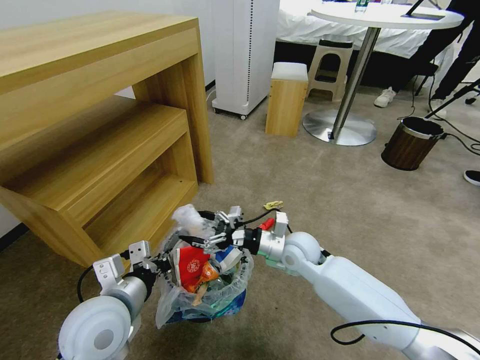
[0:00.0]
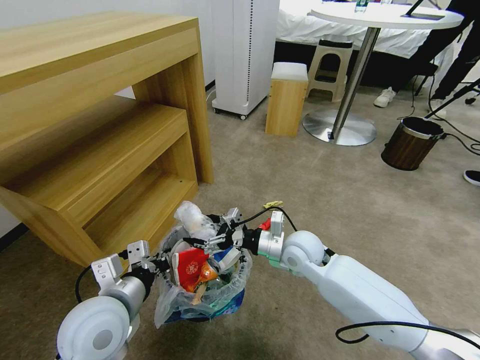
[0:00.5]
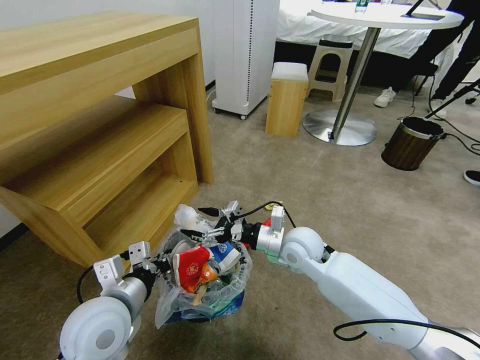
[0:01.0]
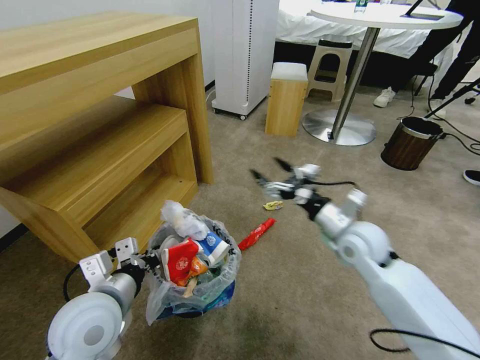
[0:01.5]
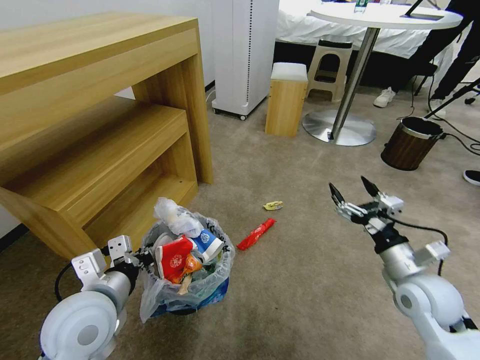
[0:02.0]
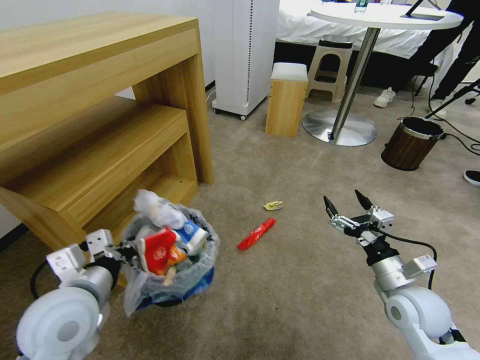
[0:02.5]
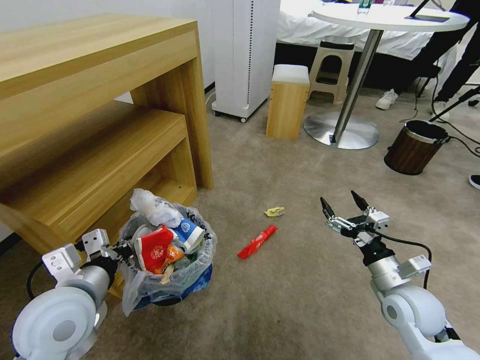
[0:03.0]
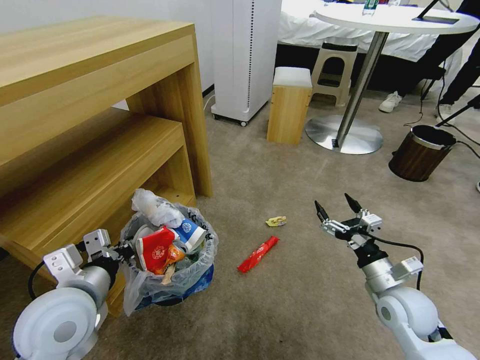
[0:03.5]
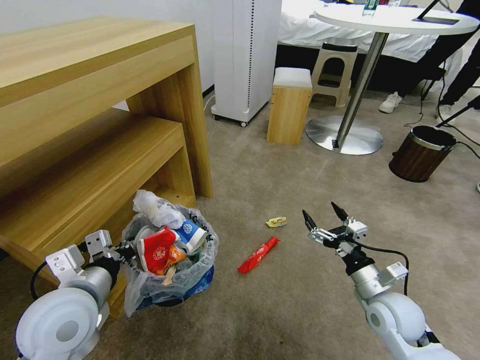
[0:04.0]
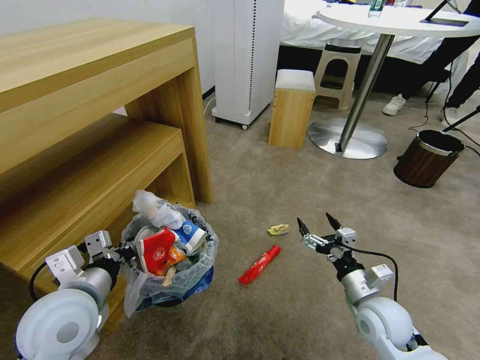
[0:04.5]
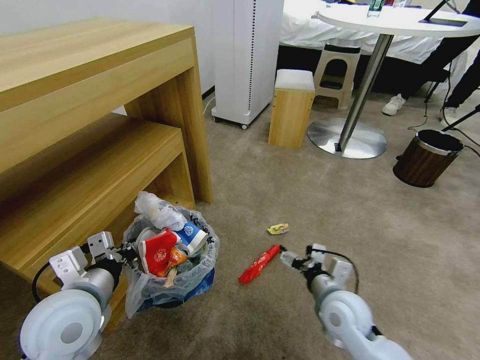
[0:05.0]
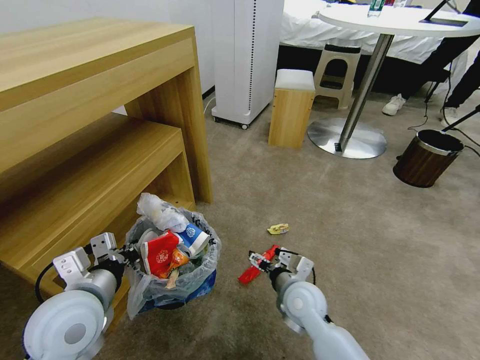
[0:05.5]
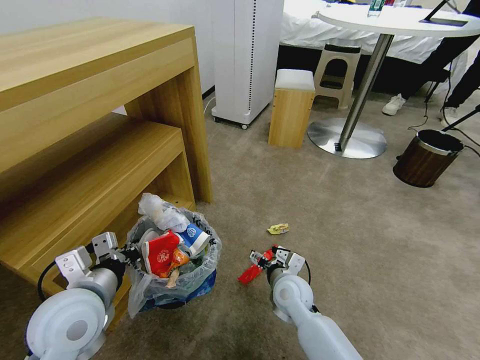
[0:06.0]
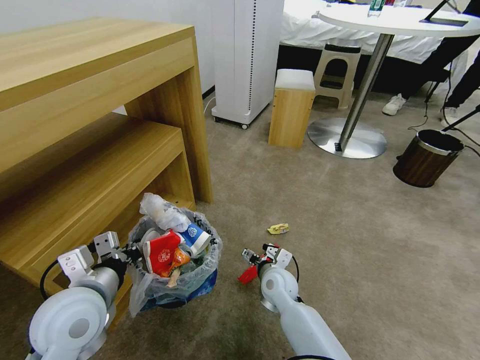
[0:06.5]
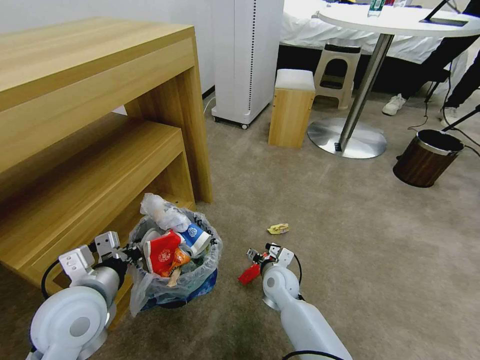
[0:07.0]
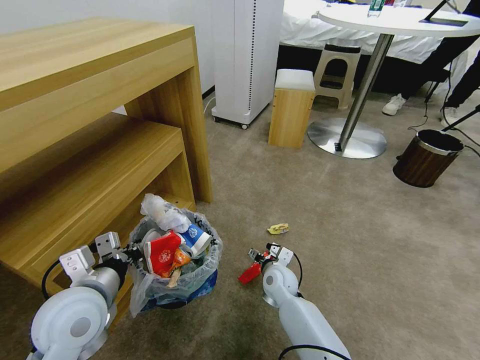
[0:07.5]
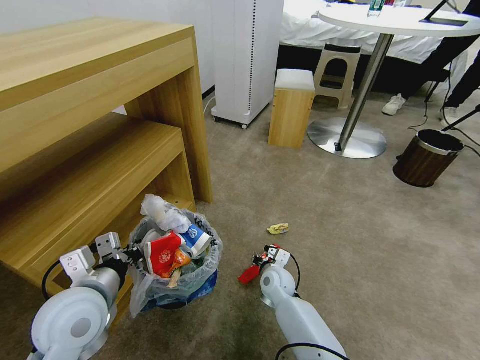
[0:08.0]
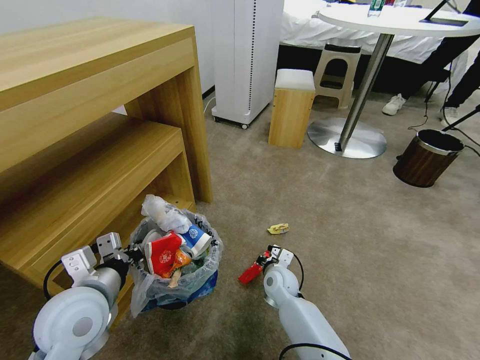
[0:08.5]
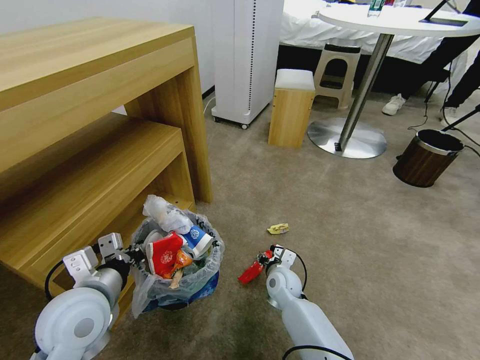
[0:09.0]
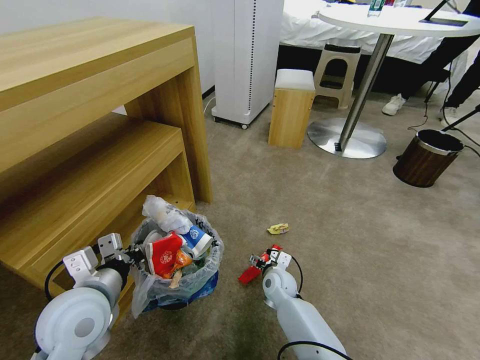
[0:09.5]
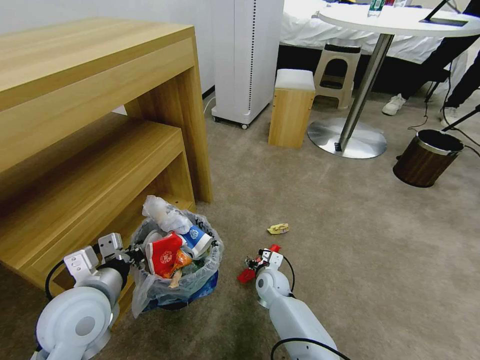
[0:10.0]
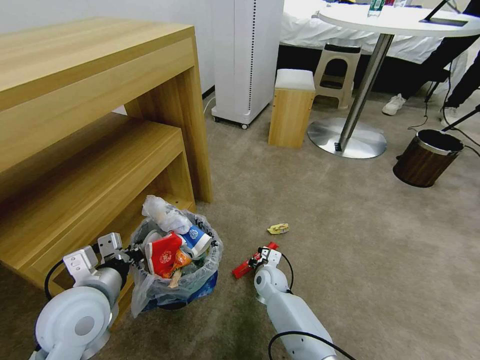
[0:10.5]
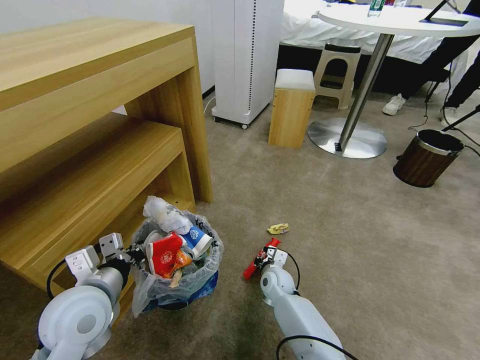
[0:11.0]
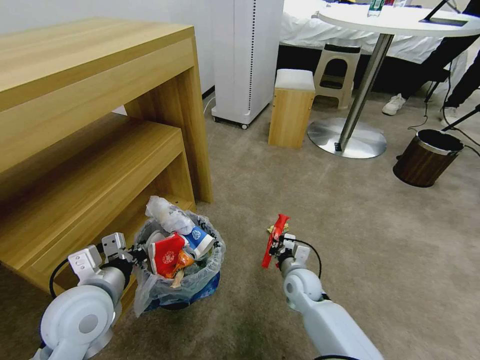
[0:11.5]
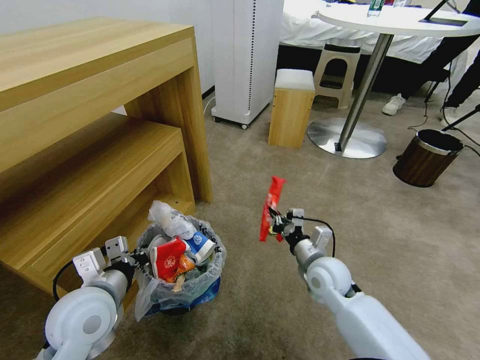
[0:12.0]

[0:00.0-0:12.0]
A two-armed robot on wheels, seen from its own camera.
Task of the whole recording: Pick up the trash bin and place the garbage on the floor into it.
0:00.0 to 0:02.0: The right gripper is displaced to the right and backward by roughly 25 cm.
0:02.0 to 0:04.0: The right gripper goes about 5 cm downward.
0:04.0 to 0:06.0: The right gripper is displaced to the left by approximately 20 cm.
0:06.0 to 0:08.0: The right gripper is displaced downward and forward by some 10 cm, and closes up.
0:08.0 to 0:10.0: The grippers stay close to where they were, moving slightly.
0:10.0 to 0:12.0: The right gripper heads upward and to the right, covering about 20 cm, and closes up.

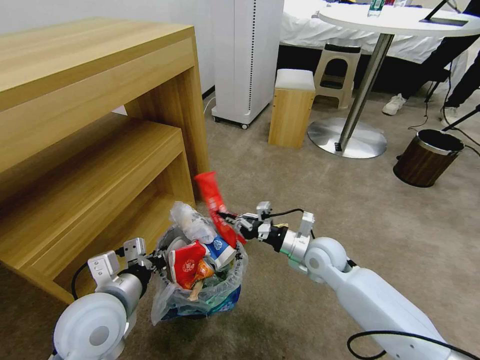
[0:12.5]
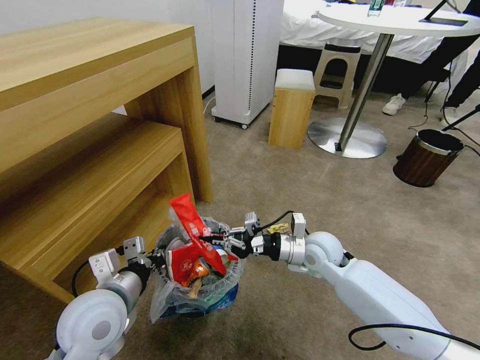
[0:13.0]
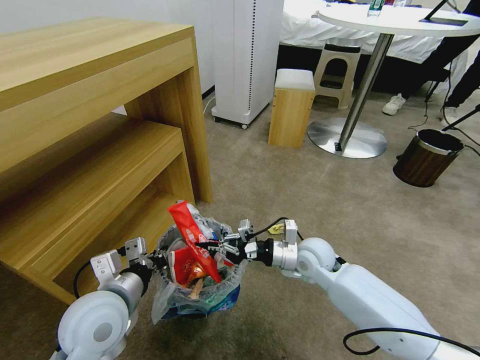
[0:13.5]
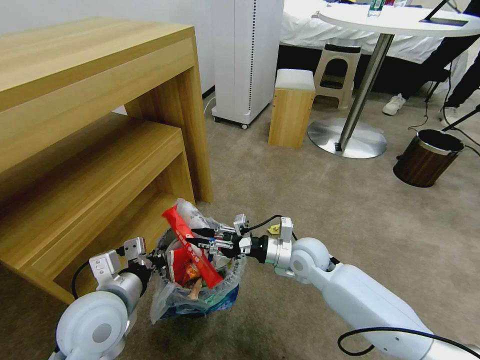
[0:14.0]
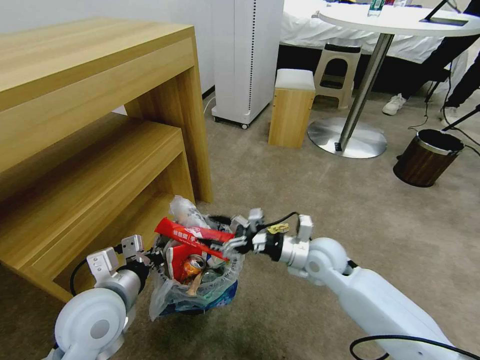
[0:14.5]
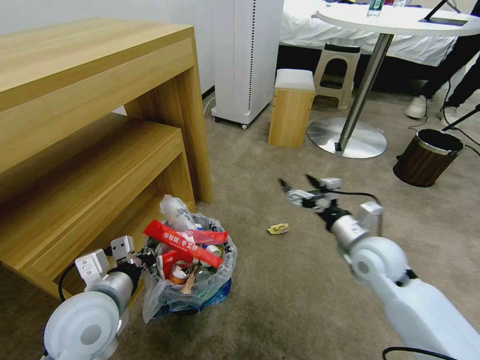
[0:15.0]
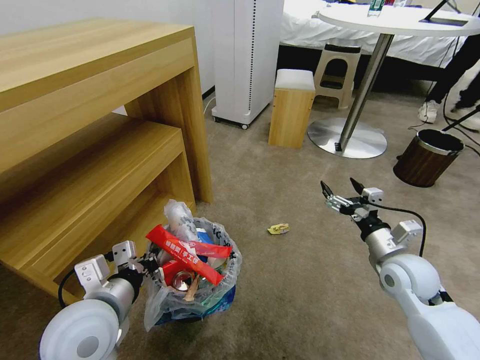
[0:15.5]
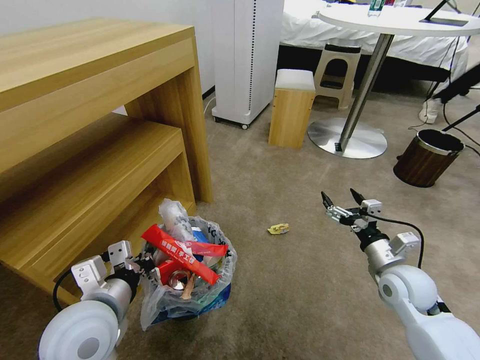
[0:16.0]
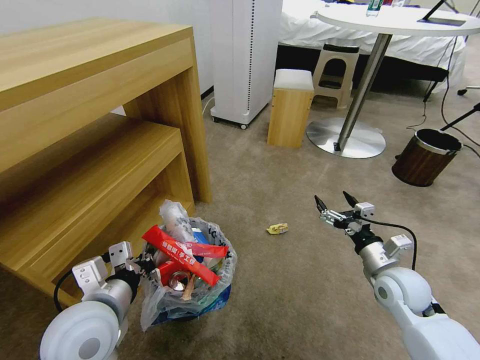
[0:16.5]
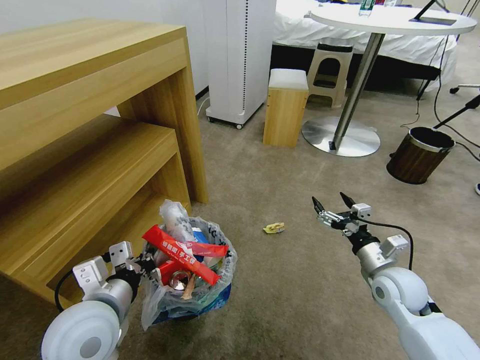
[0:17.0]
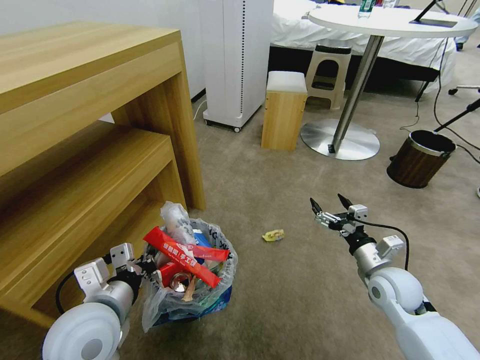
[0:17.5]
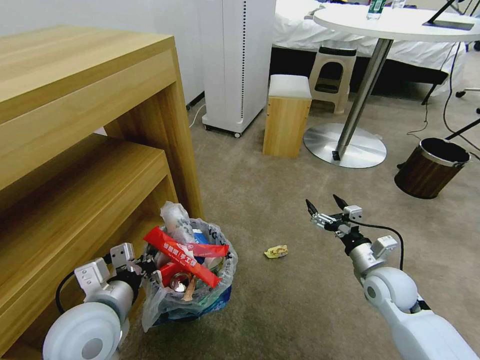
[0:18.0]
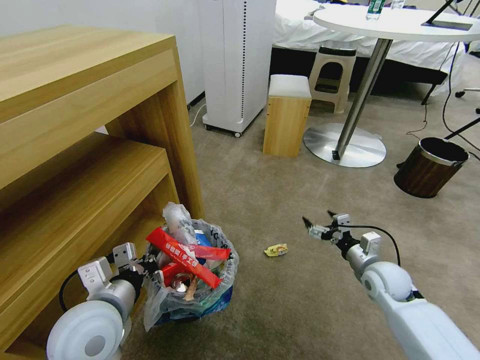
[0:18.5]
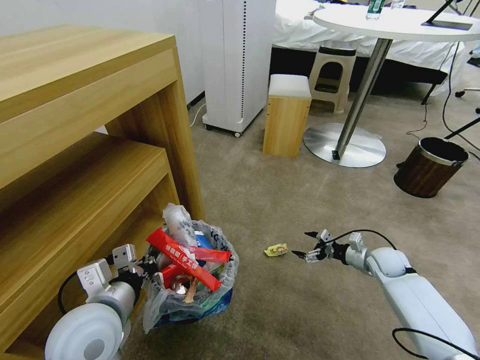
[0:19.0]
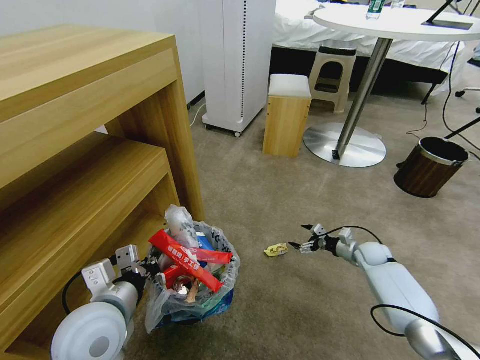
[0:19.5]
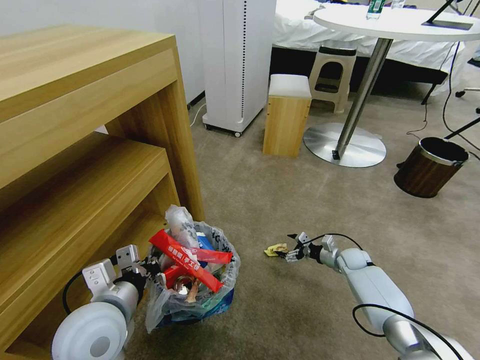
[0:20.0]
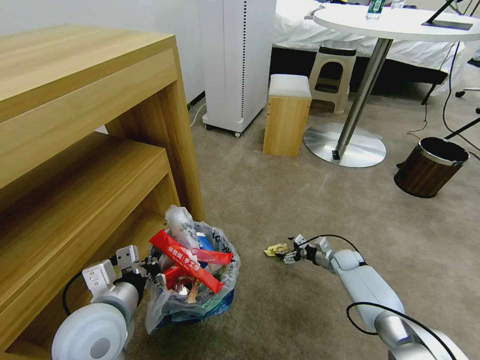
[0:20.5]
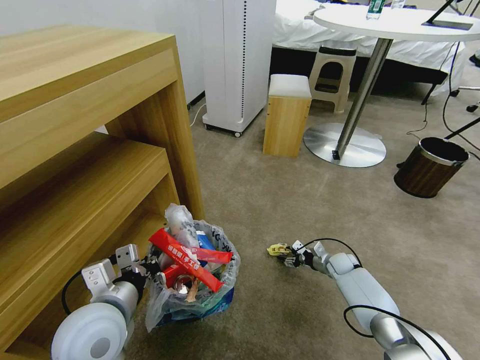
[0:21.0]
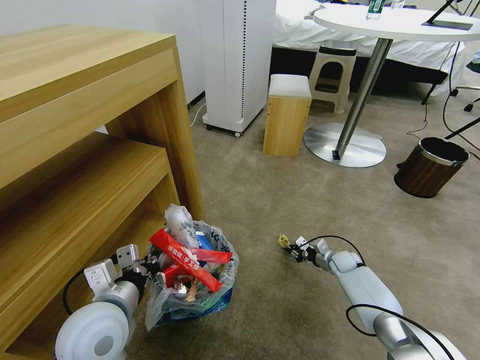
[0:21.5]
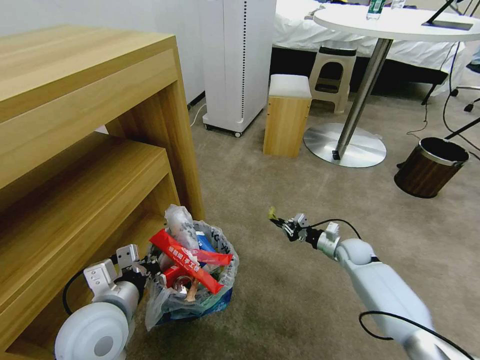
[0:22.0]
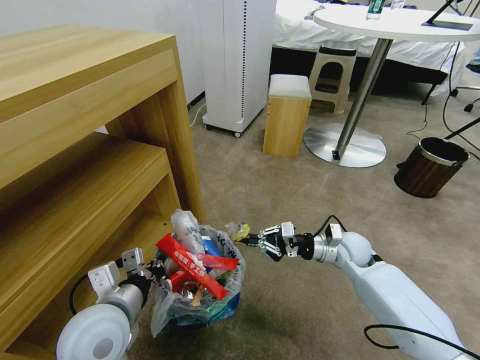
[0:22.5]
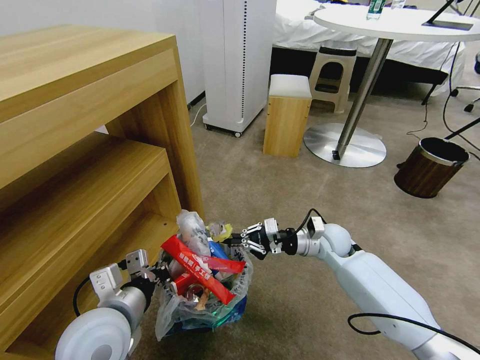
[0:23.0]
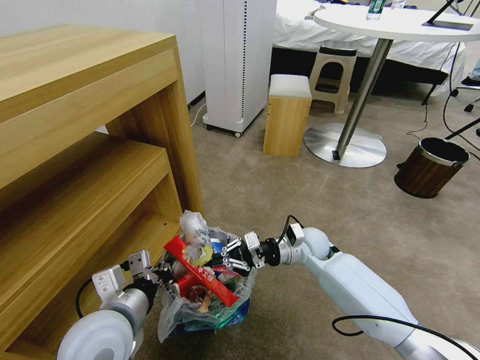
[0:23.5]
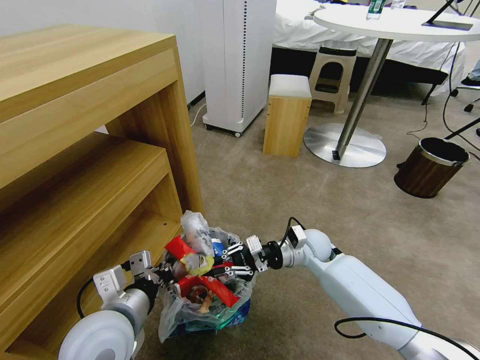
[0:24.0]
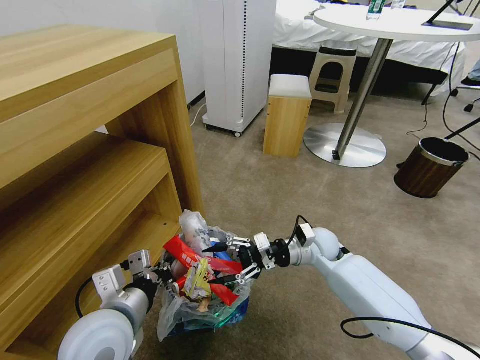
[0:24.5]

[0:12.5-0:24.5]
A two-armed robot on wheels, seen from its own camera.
Task of the whole recording: Pick up the trash bin and place the garbage on the floor into it.
0:12.5 to 0:14.5: The right gripper opens up.
0:14.5 to 0:16.5: The right gripper shifts about 15 cm to the right.
0:16.5 to 0:18.5: The right gripper ends up about 5 cm from where it was.
0:18.5 to 0:20.5: The right gripper heads downward and forward, covering approximately 20 cm.
0:20.5 to 0:22.5: The right gripper is displaced upward and to the left by about 20 cm, and closes up.
0:22.5 to 0:24.5: The right gripper moves to the left, approximately 5 cm, and opens.

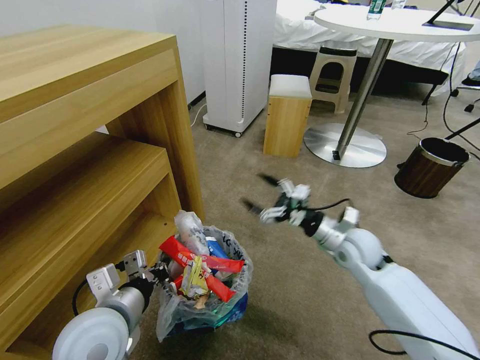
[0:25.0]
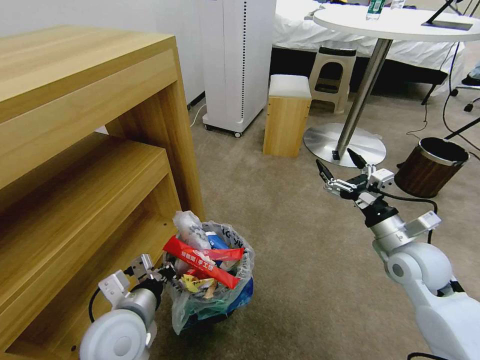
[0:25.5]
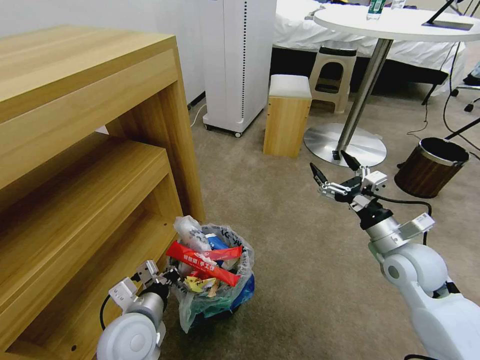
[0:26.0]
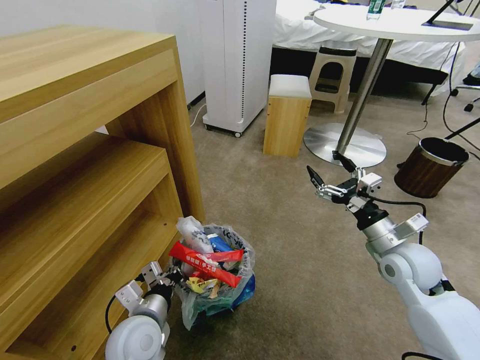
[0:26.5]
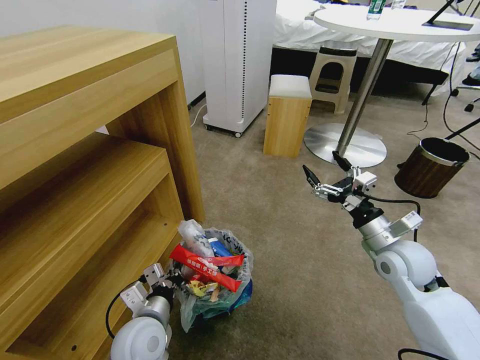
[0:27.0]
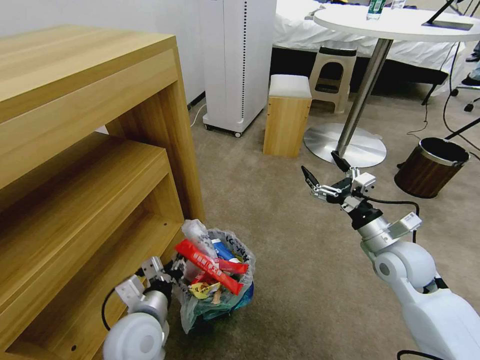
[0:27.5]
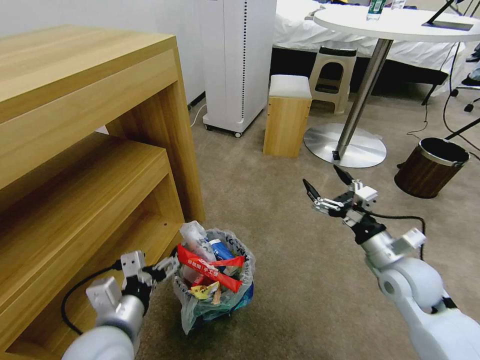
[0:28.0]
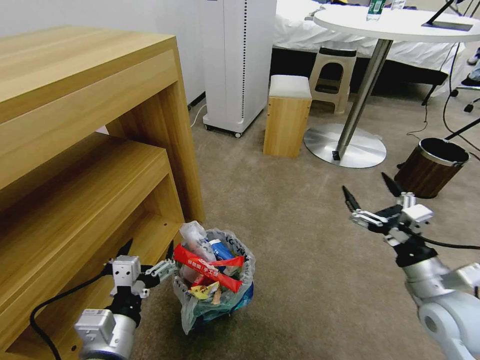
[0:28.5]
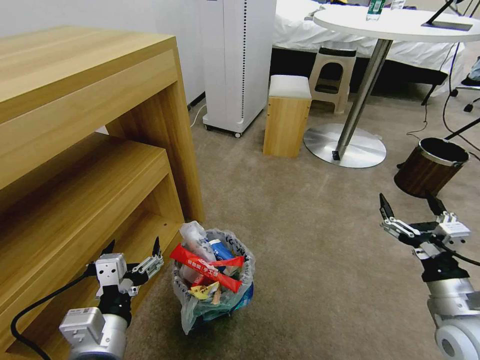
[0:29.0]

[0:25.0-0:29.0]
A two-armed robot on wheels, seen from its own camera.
Task of the whole recording: Pick up the trash bin and place the garbage on the floor into it.
0:25.0 to 0:27.0: The left gripper travels downward by roughly 10 cm. Meanwhile the right gripper travels to the right by roughly 5 cm.
0:27.0 to 0:29.0: The left gripper moves upward and backward, roughly 15 cm, and opens its fingers; the right gripper is displaced backward by about 15 cm.
